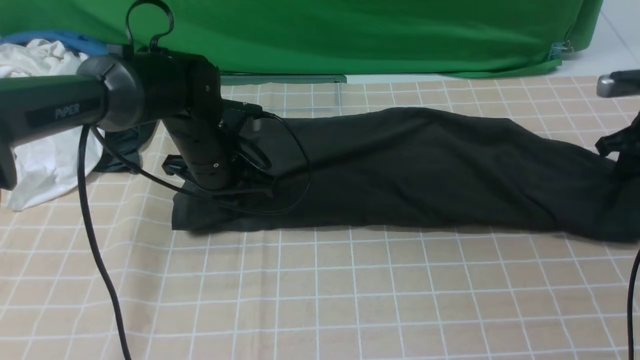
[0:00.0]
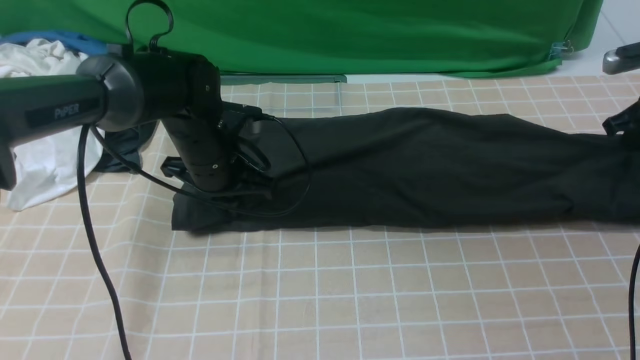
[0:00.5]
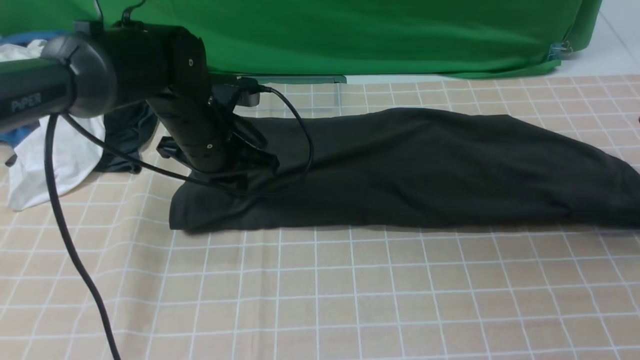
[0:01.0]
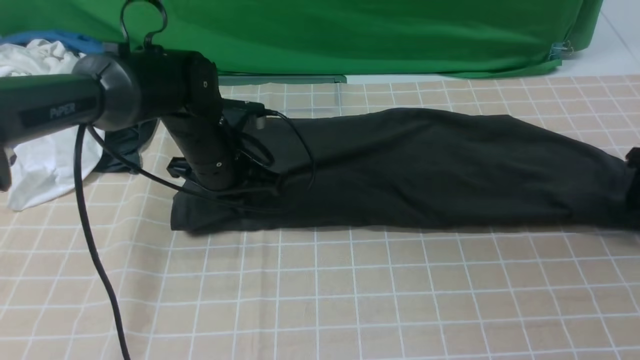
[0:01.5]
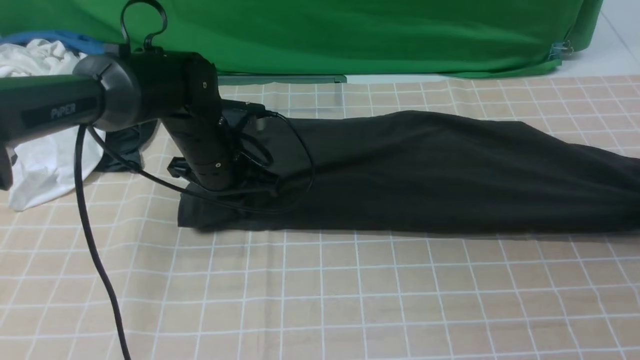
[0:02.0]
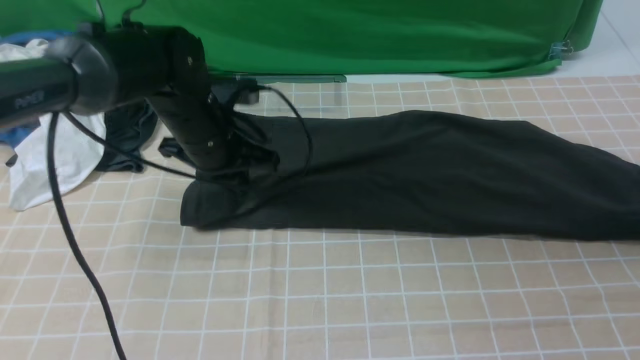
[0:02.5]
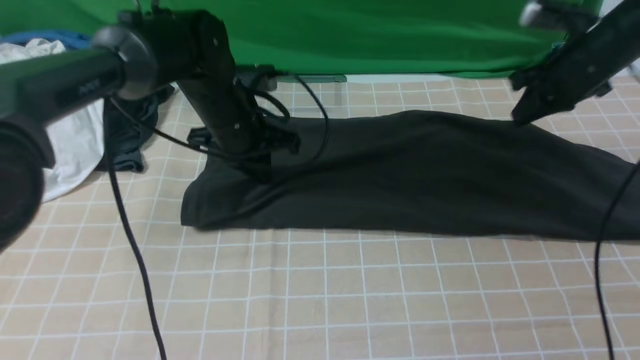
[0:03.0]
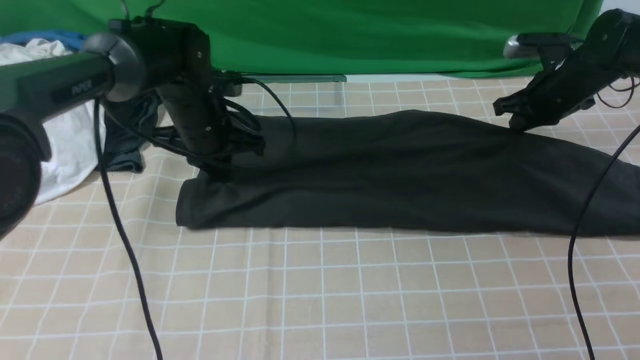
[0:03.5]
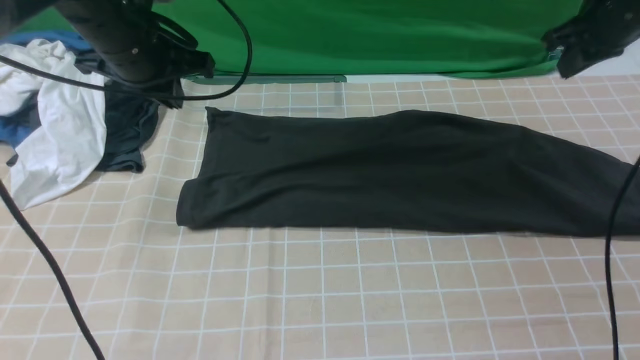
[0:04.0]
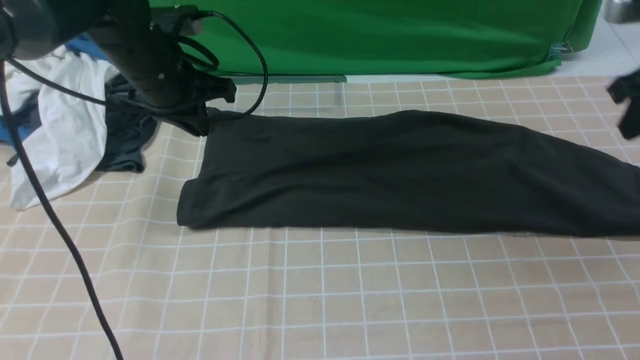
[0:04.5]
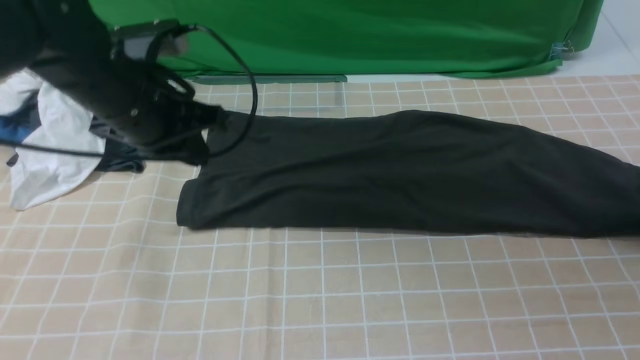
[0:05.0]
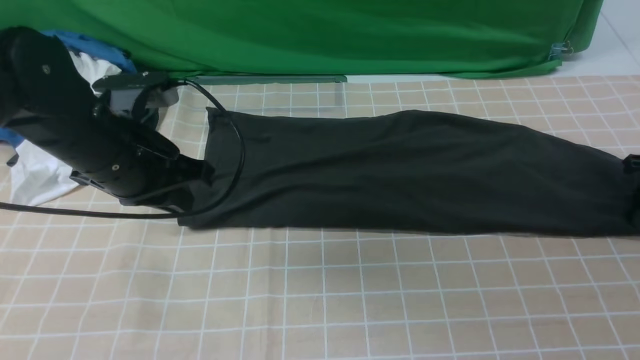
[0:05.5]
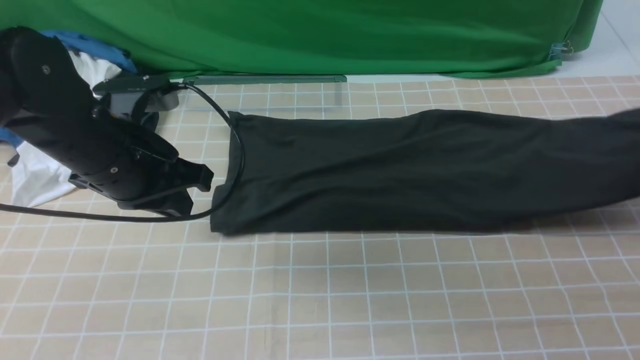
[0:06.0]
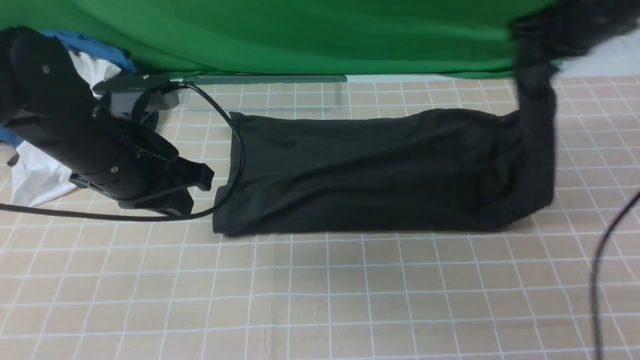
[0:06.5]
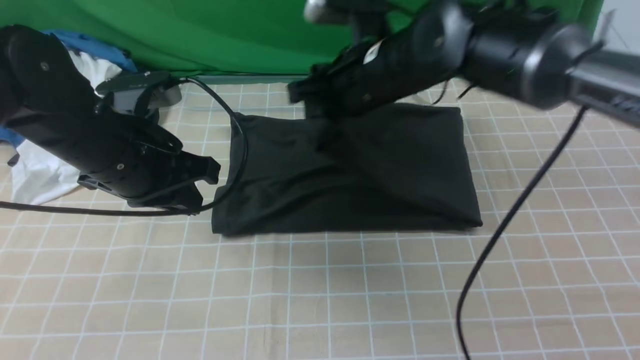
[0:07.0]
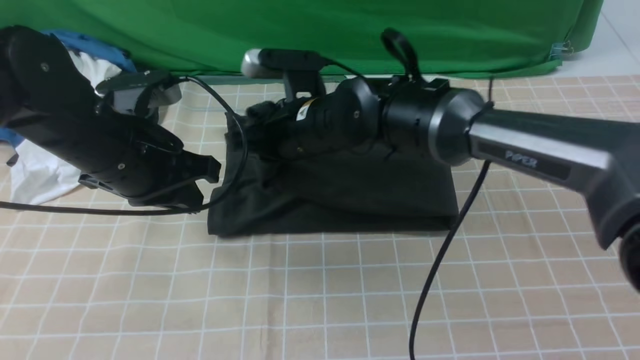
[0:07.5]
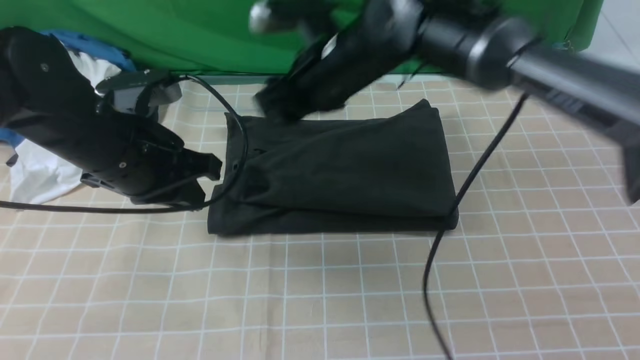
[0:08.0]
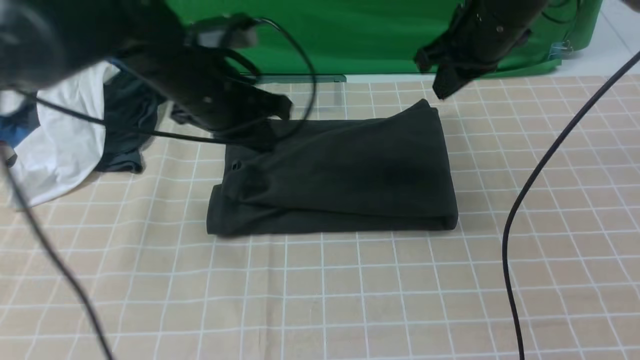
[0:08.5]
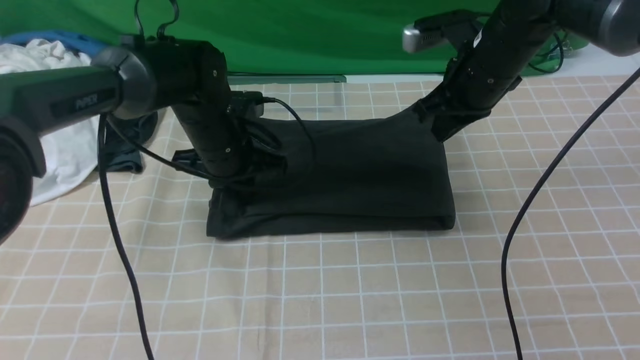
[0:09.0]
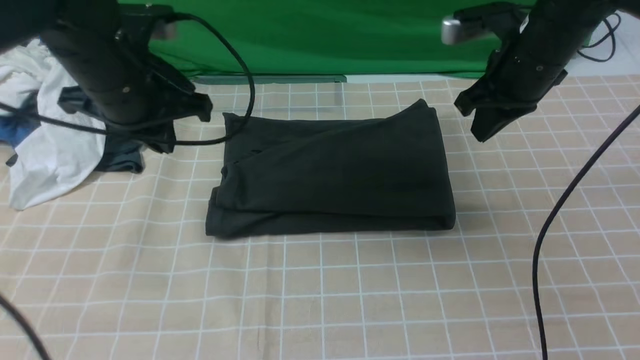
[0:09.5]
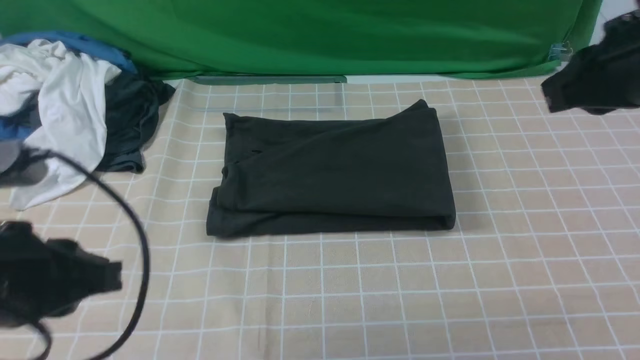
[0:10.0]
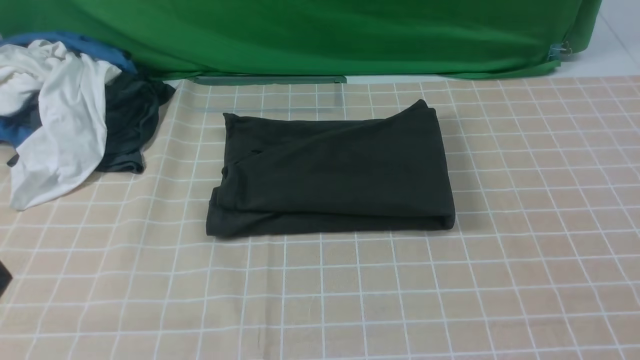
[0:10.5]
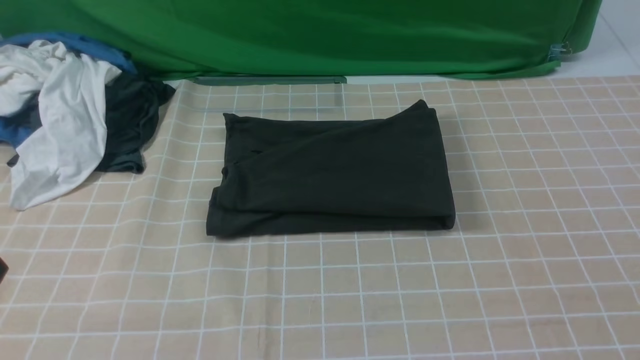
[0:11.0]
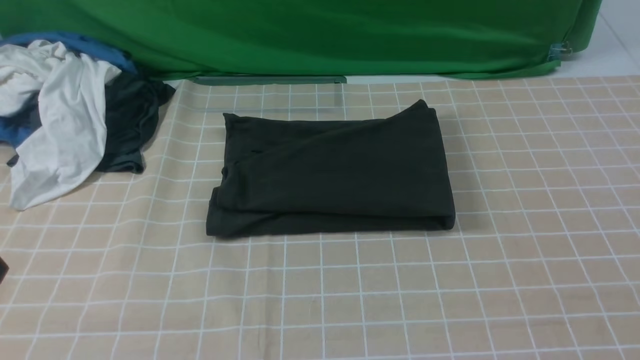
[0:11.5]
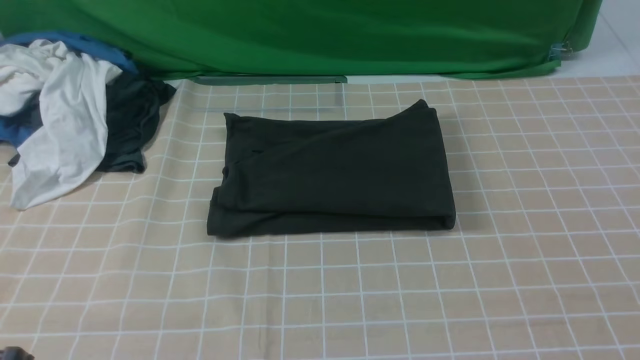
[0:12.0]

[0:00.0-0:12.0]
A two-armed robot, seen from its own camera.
Step, 0:00.0 to 0:05.5: use the right arm to clamp the right edge of the fabric.
Step, 0:06.0 to 0:08.0: use the right arm to drag the right edge of the fabric to the left and folds it over the left edge.
0:00.0 to 0:02.0: The right gripper changes place by about 5 cm, and opens and closes again.
0:02.0 to 0:04.0: The right gripper shifts approximately 20 cm to the left, upward and forward, and opens and closes again; the left gripper heads upward and to the left, covering about 15 cm.
0:04.0 to 0:06.0: The right gripper heads to the right and backward, covering roughly 15 cm, reaches roughly 15 cm downward, then returns, and opens, then closes again. The left gripper travels backward by roughly 10 cm.
0:06.0 to 0:08.0: The right gripper is displaced to the left by some 40 cm, and opens up.
0:08.0 to 0:10.0: The right gripper goes roughly 30 cm to the right, backward and upward, and closes up. The left gripper travels backward by roughly 15 cm.
0:10.0 to 0:12.0: The left gripper moves backward and downward, some 10 cm. The right gripper moves backward, about 25 cm.

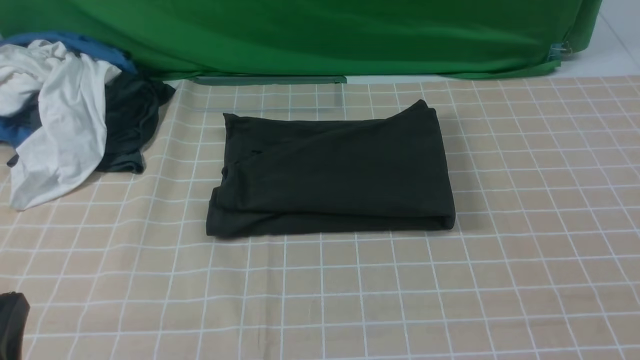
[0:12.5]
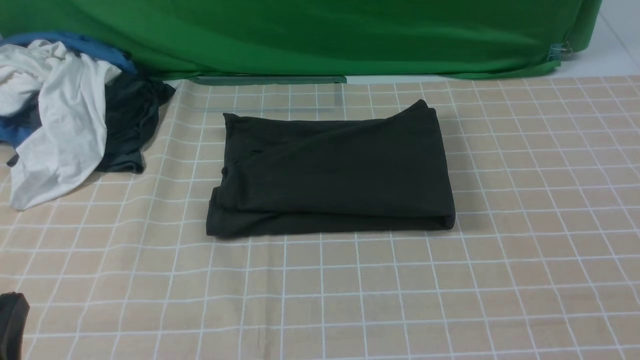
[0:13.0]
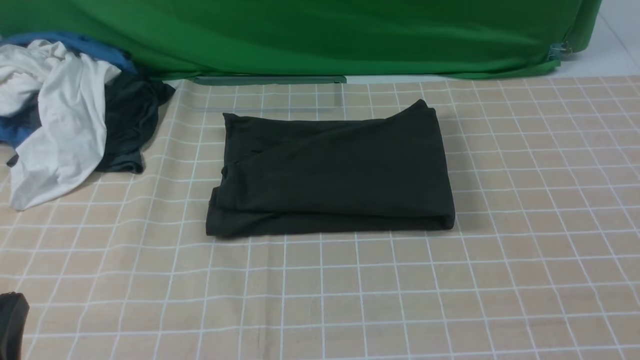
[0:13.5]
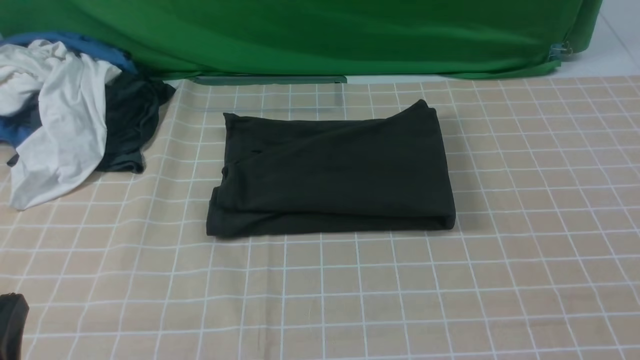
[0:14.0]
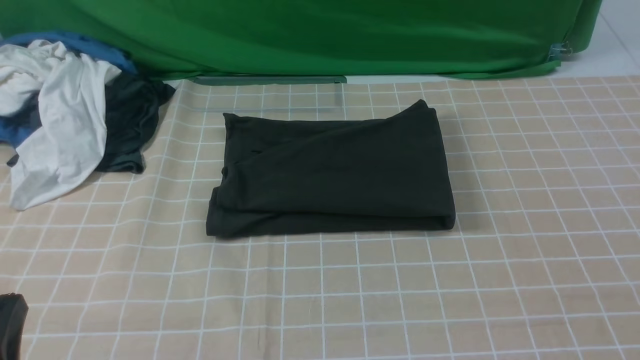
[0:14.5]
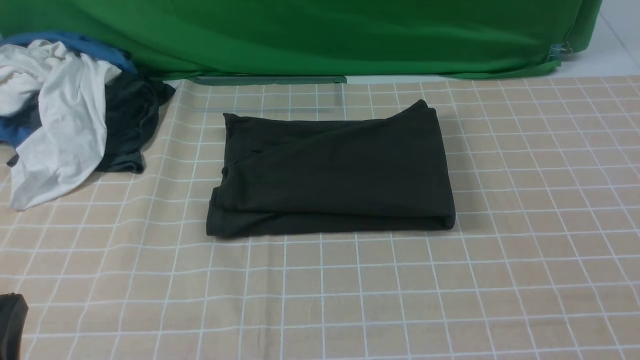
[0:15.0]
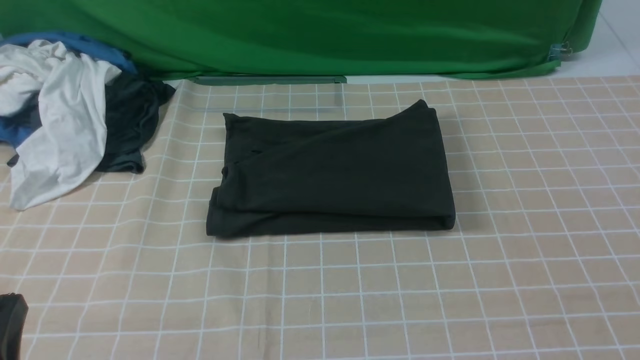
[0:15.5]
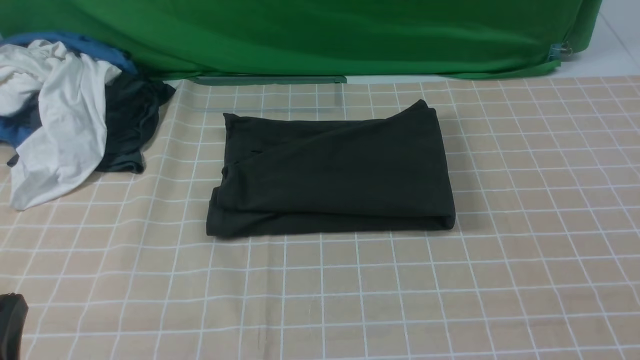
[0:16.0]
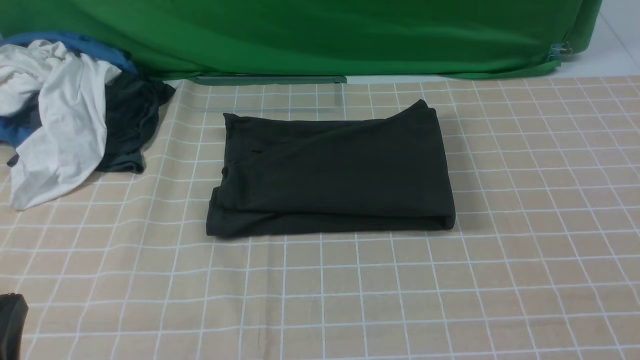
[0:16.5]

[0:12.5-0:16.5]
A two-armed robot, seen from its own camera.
0:14.5 to 0:16.5: Neither gripper changes place.
